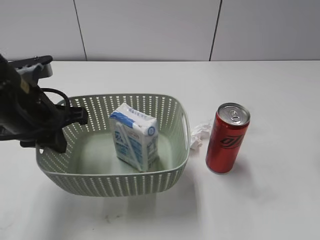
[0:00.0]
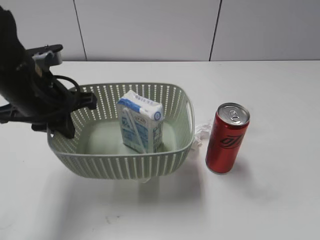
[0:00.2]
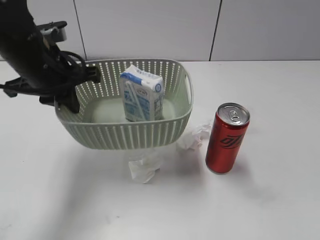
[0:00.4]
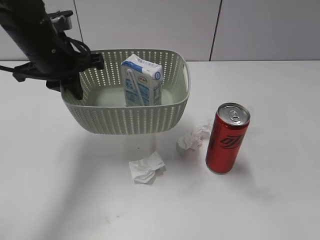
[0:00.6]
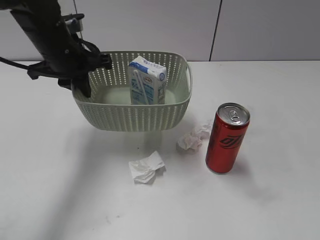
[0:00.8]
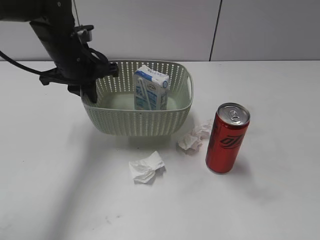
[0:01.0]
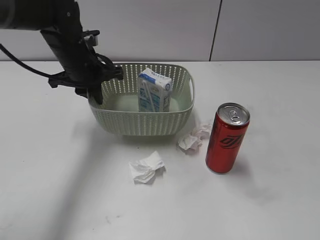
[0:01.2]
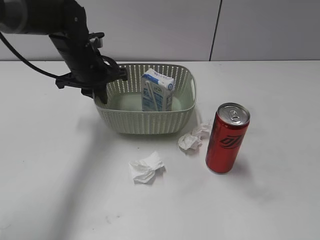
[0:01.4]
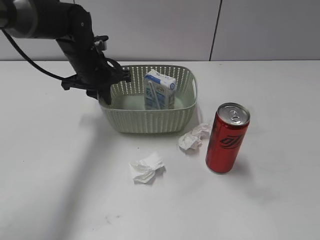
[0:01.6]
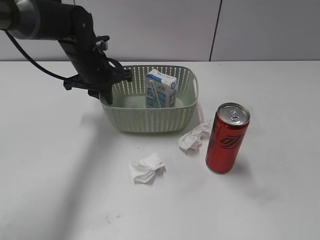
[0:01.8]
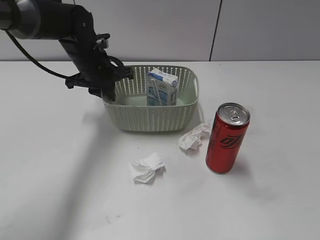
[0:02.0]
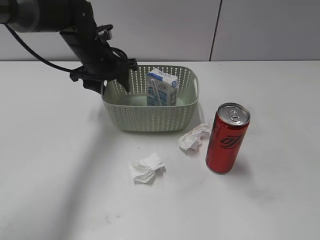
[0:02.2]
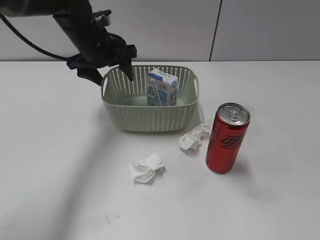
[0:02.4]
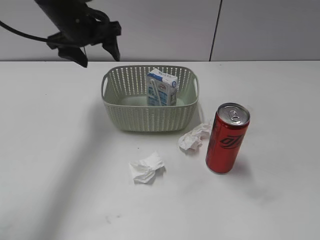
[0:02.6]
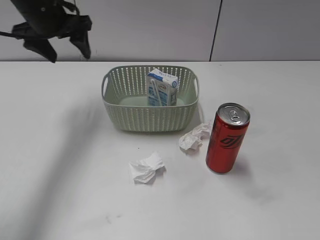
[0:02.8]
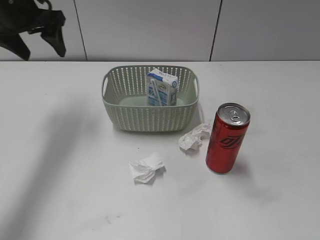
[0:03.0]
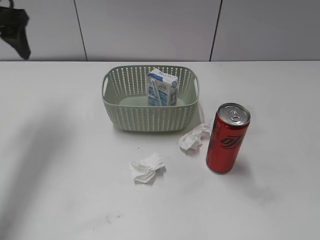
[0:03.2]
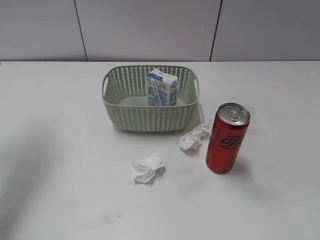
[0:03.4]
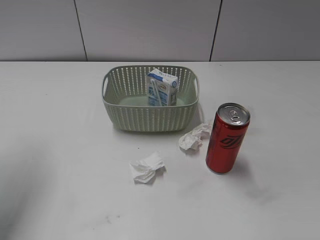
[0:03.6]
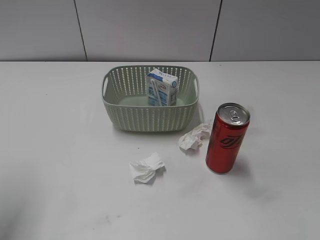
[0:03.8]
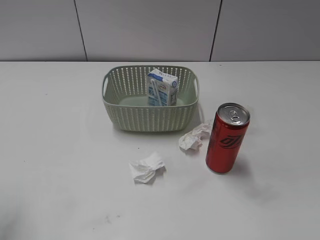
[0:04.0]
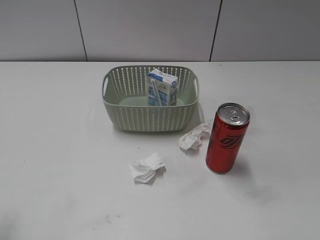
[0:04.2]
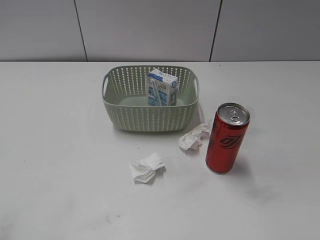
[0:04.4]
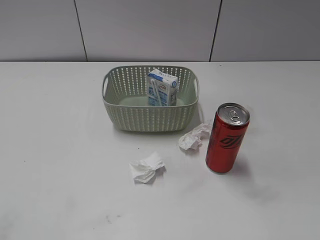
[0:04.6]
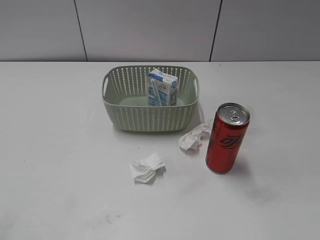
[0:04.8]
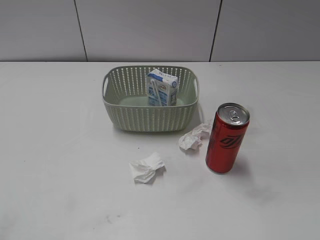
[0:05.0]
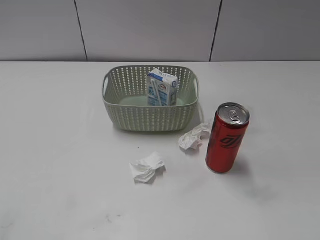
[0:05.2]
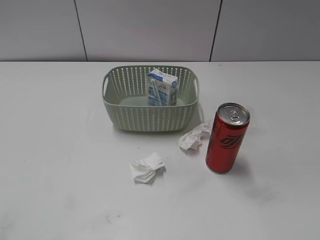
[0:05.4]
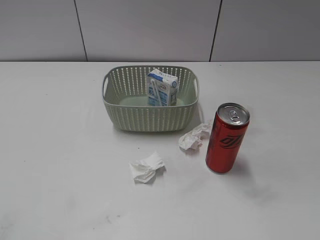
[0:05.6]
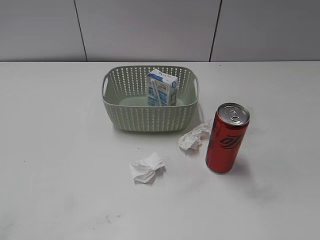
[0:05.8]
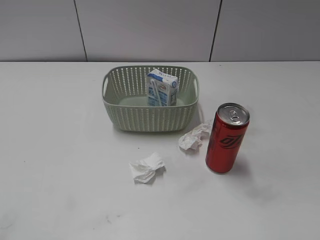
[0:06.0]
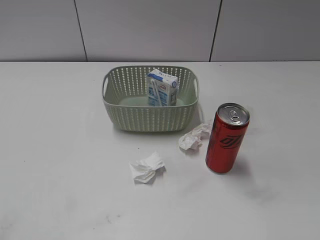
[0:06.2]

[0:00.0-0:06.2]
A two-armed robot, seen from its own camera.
Step, 0:00.0 to 0:02.4: Place the basket on the table with left gripper.
0:00.0 to 0:01.6: The left gripper shifts approximately 20 cm forward; the right gripper heads backward, covering approximately 25 cm.
0:01.6 to 0:03.2: The left gripper goes about 20 cm to the left and upward, and opens up.
0:03.2 to 0:04.6: The left gripper travels backward by some 30 cm.

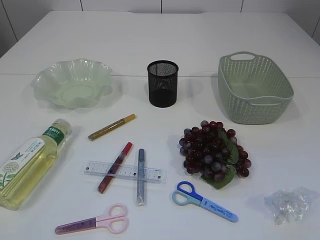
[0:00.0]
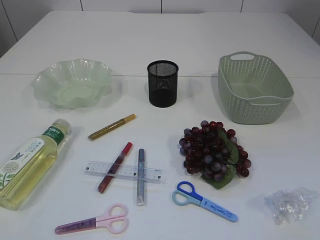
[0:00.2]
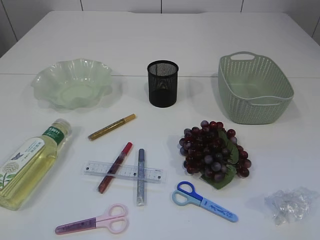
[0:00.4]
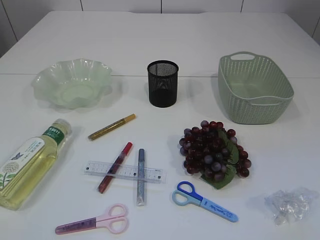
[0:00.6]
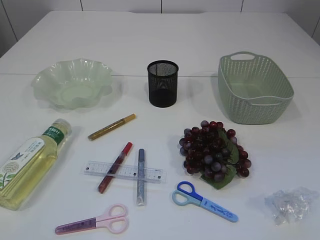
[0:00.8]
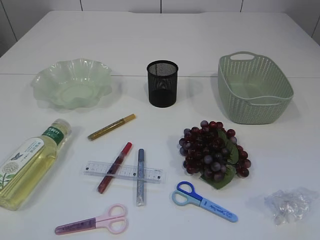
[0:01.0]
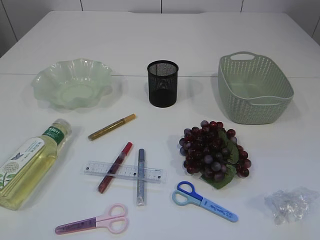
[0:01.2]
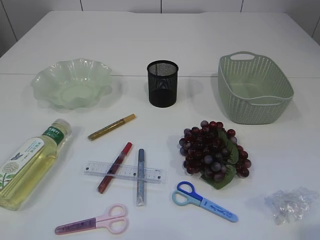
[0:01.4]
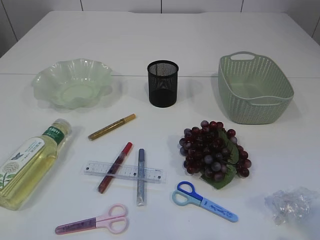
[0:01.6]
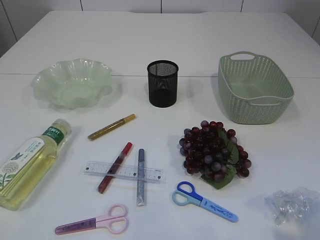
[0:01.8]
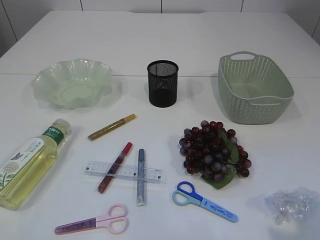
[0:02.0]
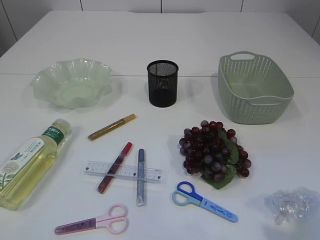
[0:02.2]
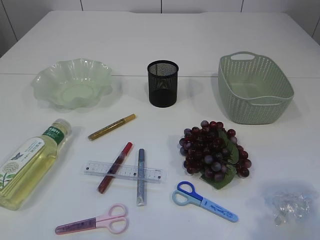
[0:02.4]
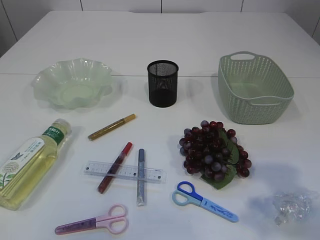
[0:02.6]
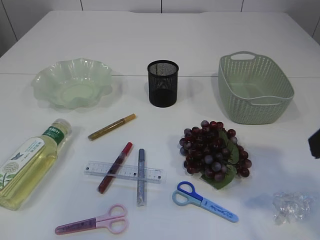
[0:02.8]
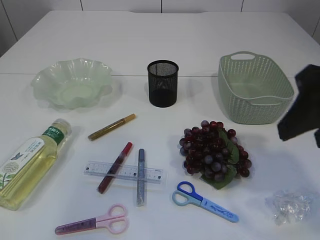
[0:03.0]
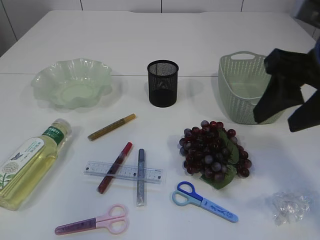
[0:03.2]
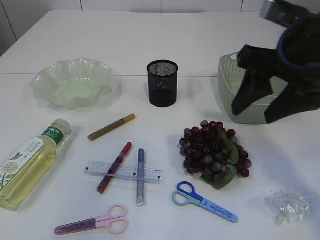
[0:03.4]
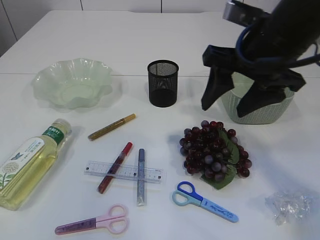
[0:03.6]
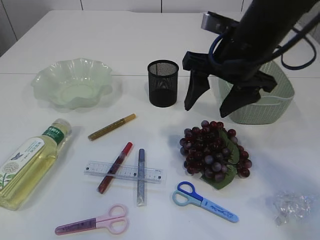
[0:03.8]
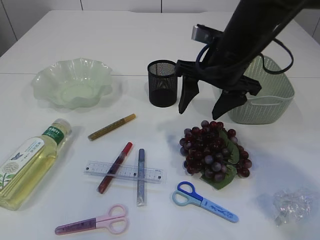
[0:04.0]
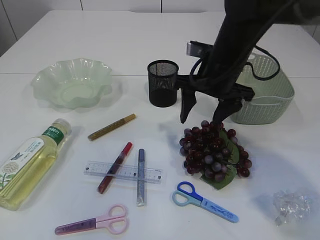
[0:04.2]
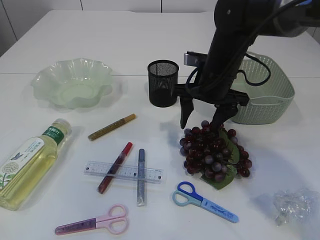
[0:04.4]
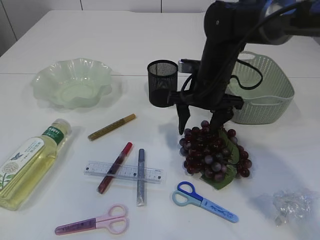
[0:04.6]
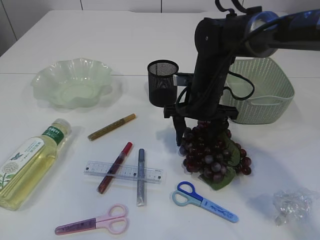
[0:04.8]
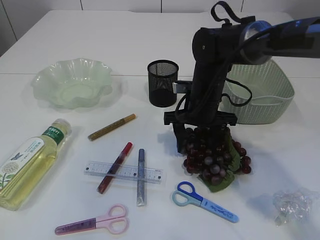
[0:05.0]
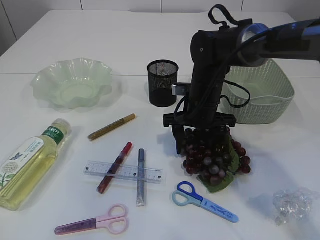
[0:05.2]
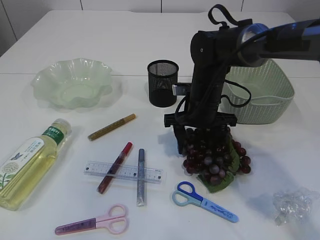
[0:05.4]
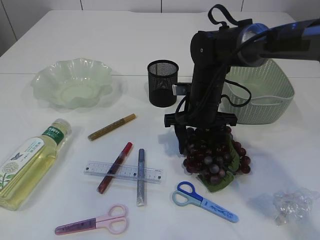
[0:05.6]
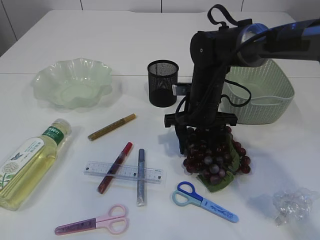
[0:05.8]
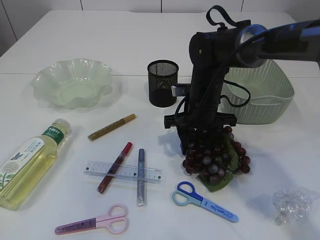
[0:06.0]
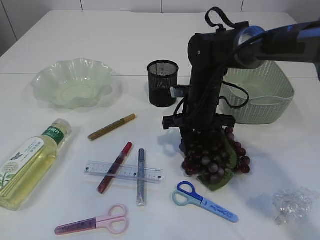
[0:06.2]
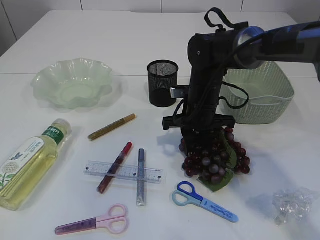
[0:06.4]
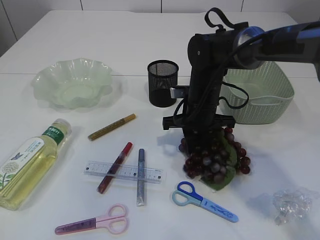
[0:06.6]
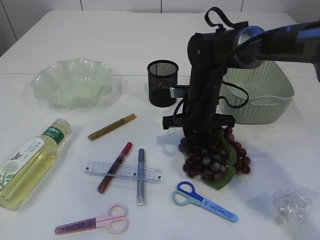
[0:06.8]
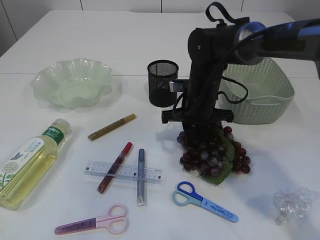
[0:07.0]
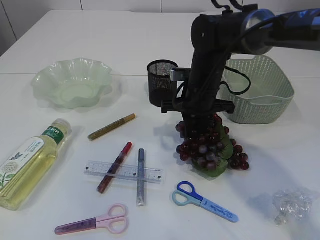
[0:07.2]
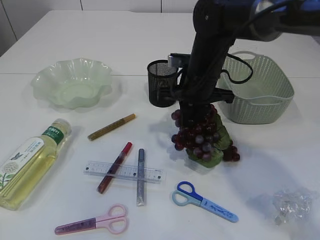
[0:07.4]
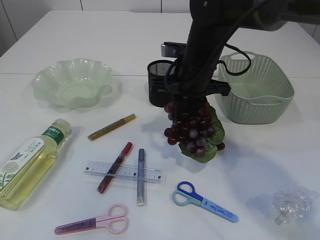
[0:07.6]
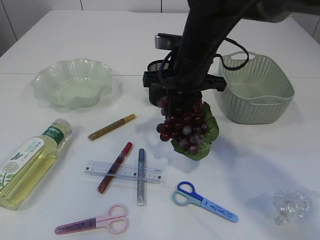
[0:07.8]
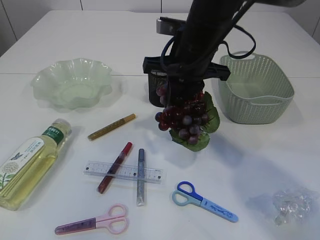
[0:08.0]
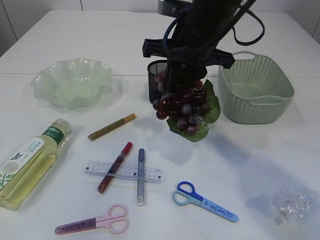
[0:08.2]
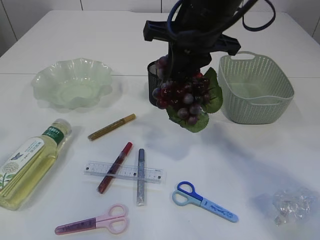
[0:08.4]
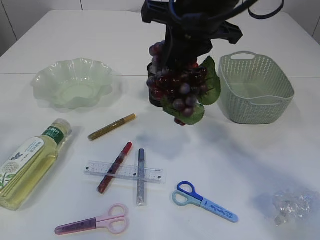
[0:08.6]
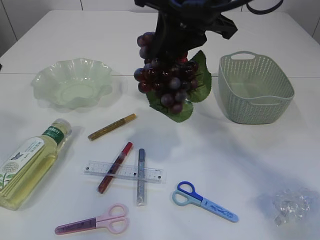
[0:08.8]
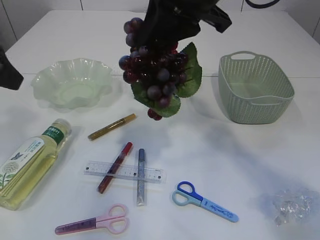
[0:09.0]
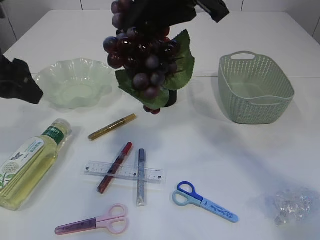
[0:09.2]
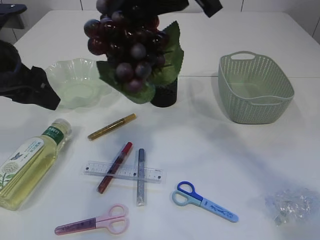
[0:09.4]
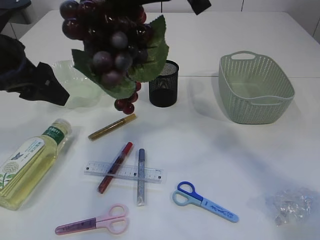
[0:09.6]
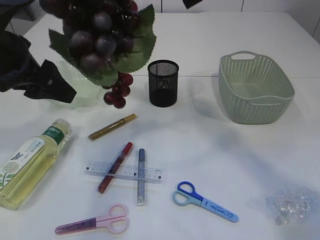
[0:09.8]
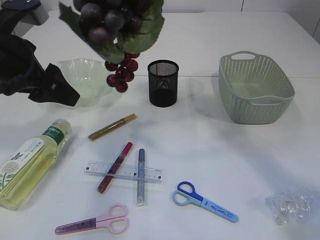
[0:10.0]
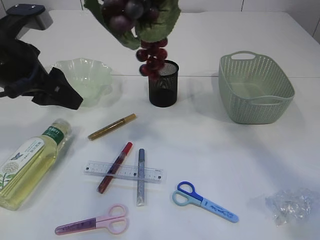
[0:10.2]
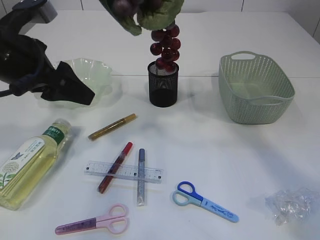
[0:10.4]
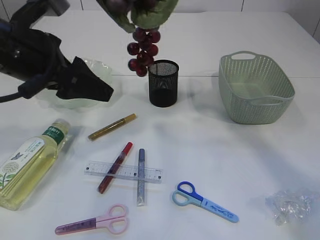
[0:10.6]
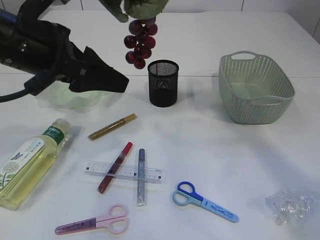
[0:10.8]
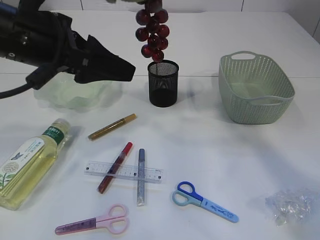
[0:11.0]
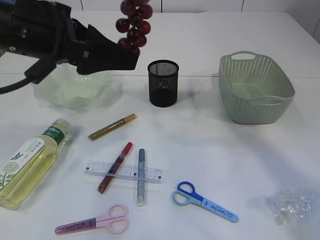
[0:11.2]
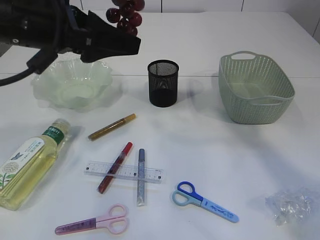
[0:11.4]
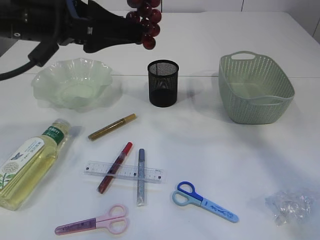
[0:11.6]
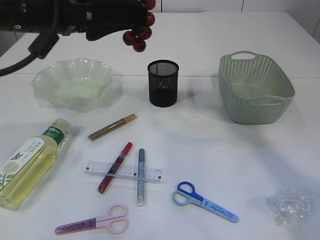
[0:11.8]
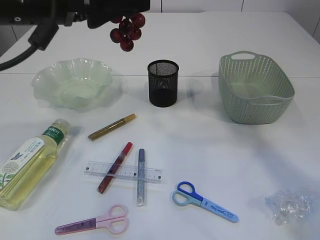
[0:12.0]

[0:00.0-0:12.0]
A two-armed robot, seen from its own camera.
Step, 0:00.0 to 0:08.2: Pick up the grapes.
0:01.6 to 0:03.0: The left gripper shifts some 15 cm upward and forward. The right gripper heads forward, covering about 15 cm.
0:03.0 to 0:04.4: The right gripper travels forward, downward and to the left by roughly 25 cm. The left gripper moves forward, roughly 5 cm.
0:04.4 to 0:06.0: The right gripper heads downward, covering roughly 5 cm.
0:06.0 to 0:07.6: The right gripper travels upward by roughly 10 cm, and closes.
0:07.6 to 0:09.0: The left gripper heads forward, covering about 10 cm. Meanwhile the right gripper heads upward and backward, covering roughly 20 cm.
0:09.0 to 0:10.4: The right gripper is displaced upward by some 5 cm. Meanwhile the left gripper goes roughly 5 cm downward.
0:10.4 to 0:12.0: The left gripper is displaced upward and to the right by roughly 10 cm.

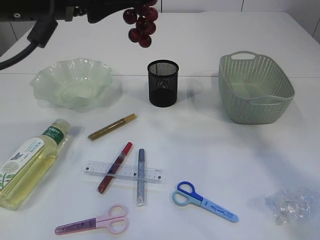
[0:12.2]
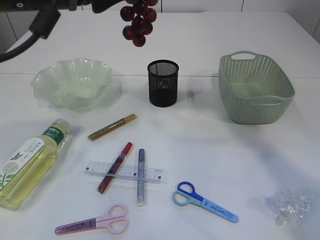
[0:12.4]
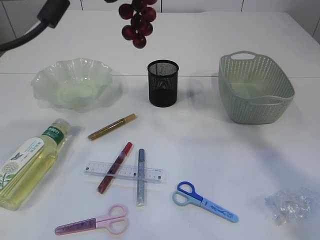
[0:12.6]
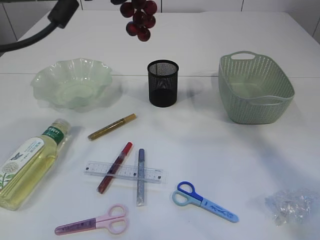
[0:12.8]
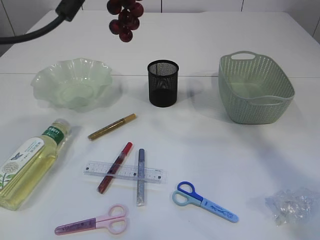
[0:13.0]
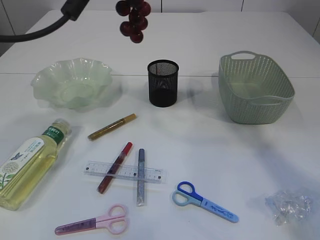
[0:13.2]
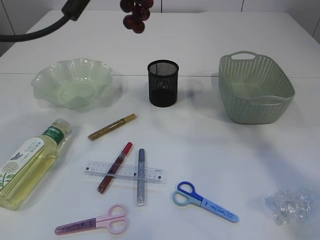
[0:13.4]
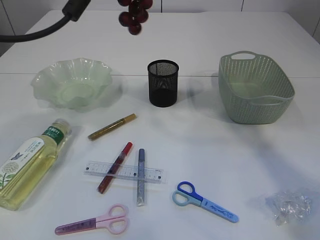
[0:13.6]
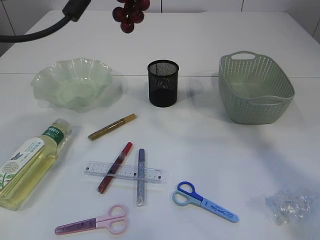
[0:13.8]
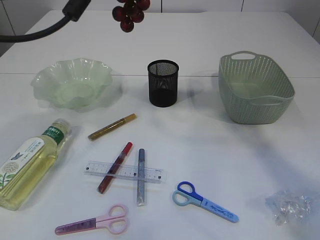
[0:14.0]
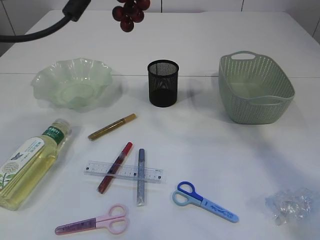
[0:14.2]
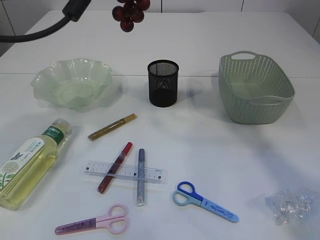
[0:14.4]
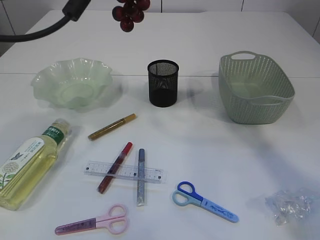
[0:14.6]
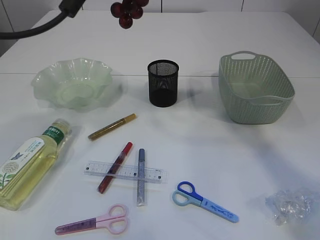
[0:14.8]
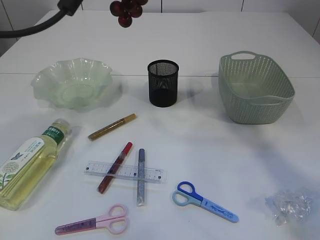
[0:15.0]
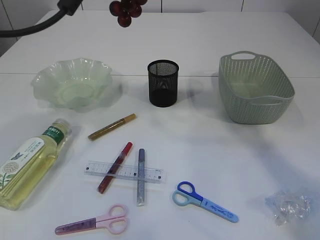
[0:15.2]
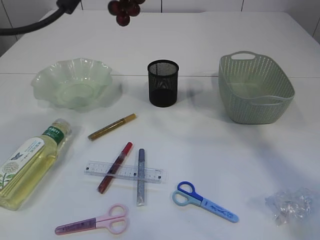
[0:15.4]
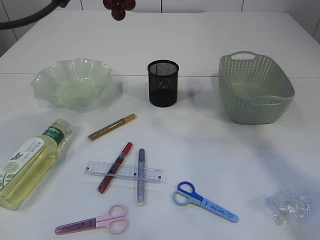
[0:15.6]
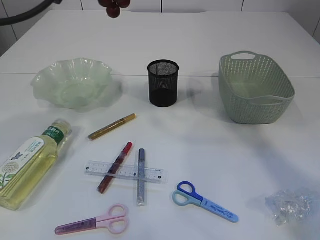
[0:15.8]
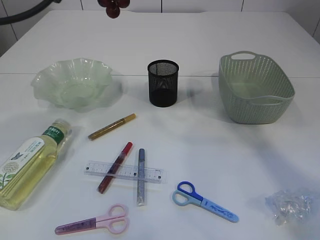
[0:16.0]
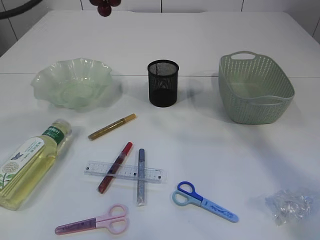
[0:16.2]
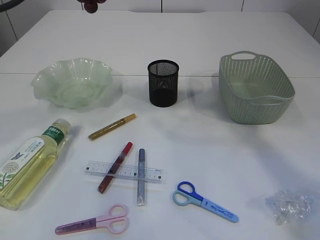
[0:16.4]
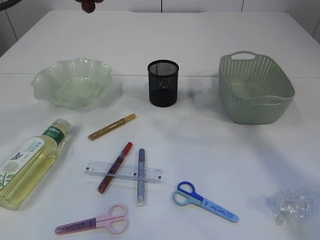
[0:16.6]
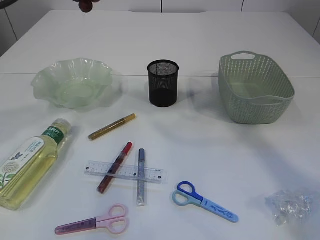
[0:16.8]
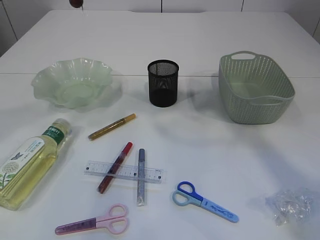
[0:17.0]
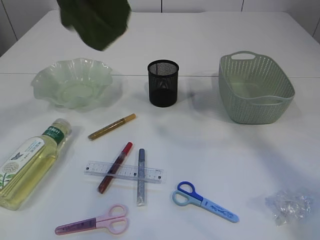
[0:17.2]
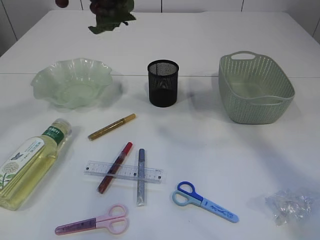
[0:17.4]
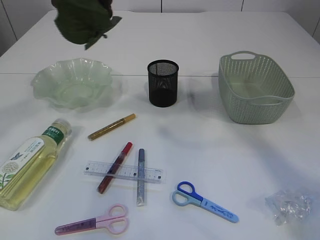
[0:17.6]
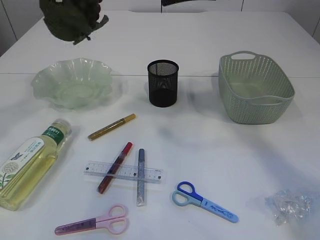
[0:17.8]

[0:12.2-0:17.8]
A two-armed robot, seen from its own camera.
0:12.2 to 0:13.6: The left gripper closes.
0:13.6 to 0:15.0: The right gripper opens up.
0:15.0 to 0:16.4: There are only small adjustments of the grippers.
0:16.4 to 0:17.8: The left gripper moves about 5 cm.
